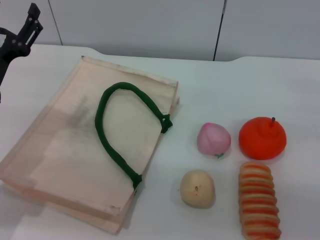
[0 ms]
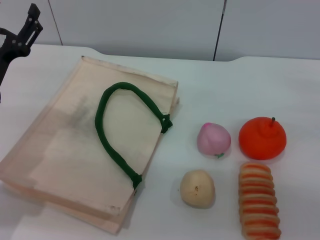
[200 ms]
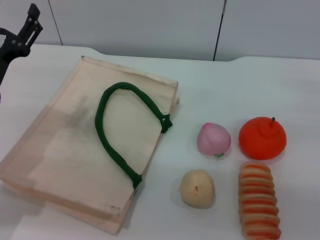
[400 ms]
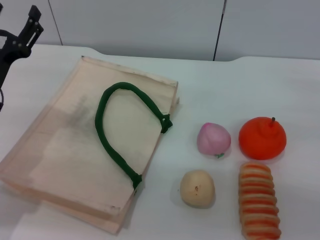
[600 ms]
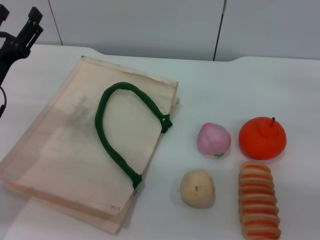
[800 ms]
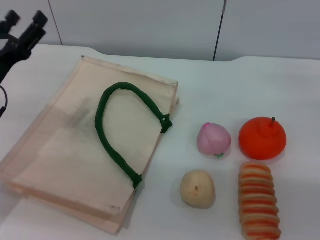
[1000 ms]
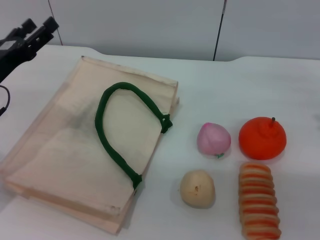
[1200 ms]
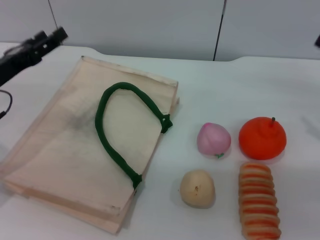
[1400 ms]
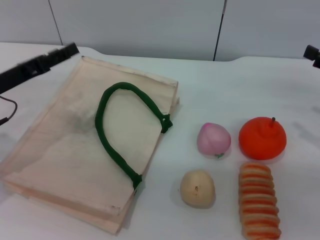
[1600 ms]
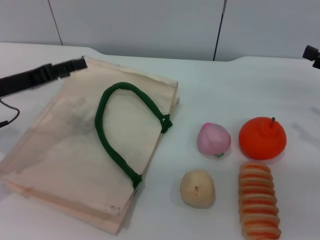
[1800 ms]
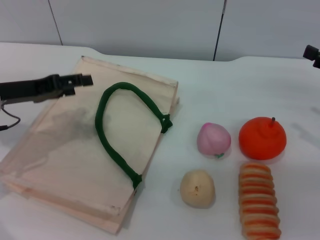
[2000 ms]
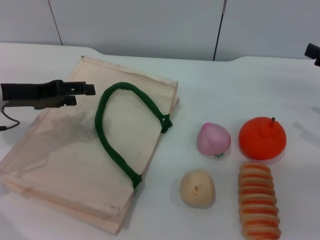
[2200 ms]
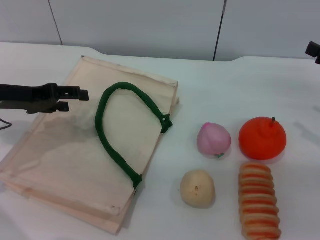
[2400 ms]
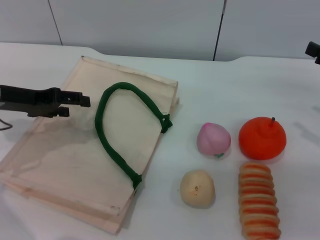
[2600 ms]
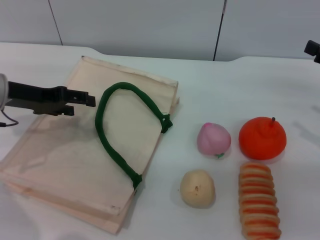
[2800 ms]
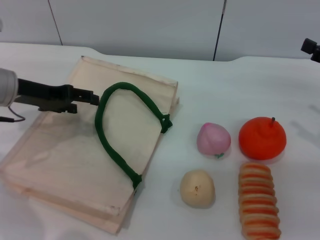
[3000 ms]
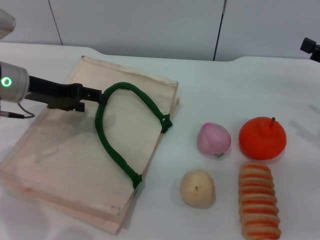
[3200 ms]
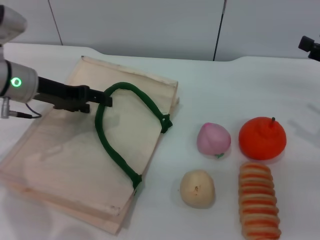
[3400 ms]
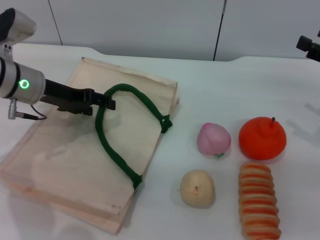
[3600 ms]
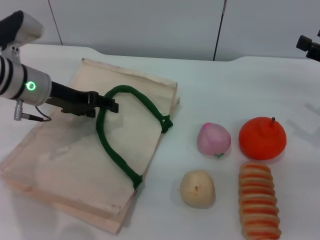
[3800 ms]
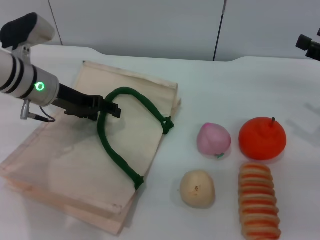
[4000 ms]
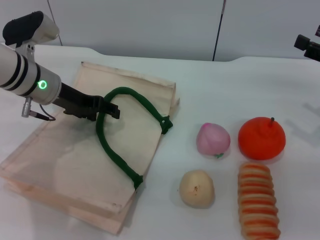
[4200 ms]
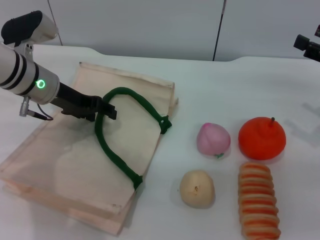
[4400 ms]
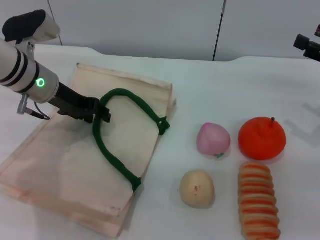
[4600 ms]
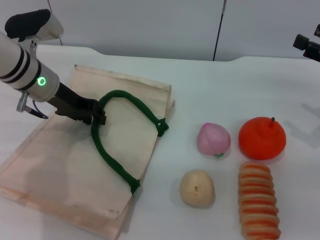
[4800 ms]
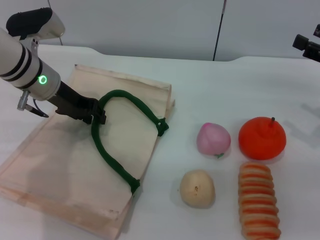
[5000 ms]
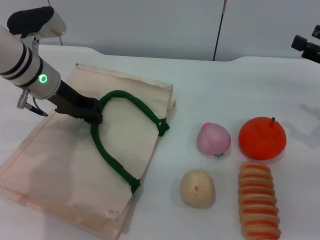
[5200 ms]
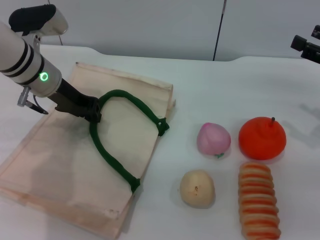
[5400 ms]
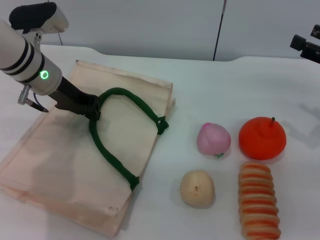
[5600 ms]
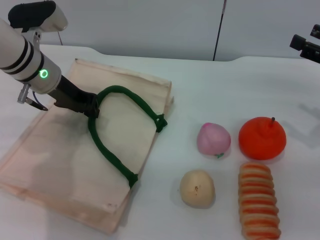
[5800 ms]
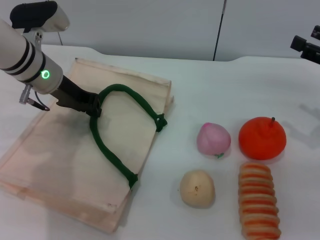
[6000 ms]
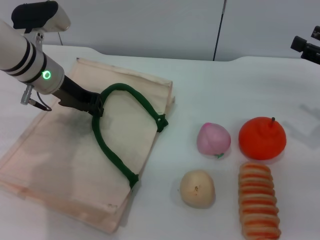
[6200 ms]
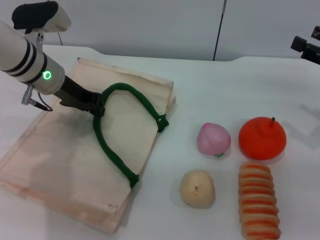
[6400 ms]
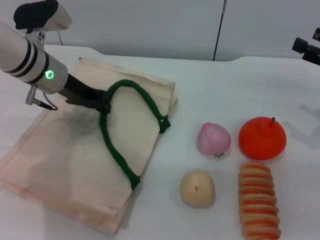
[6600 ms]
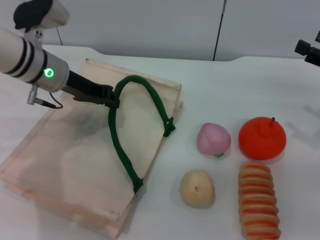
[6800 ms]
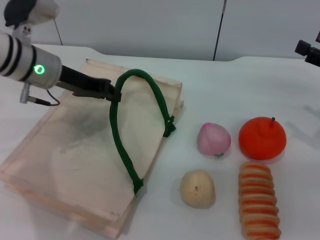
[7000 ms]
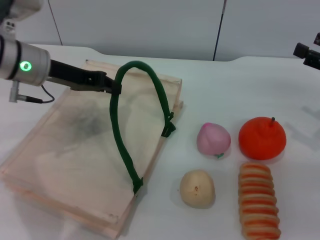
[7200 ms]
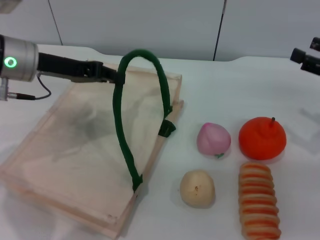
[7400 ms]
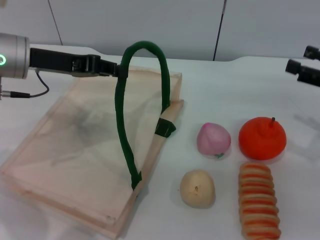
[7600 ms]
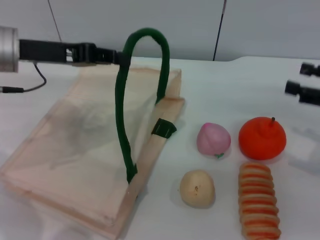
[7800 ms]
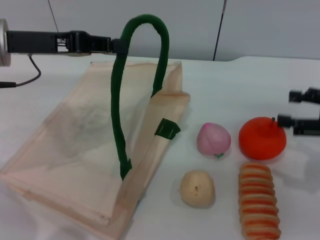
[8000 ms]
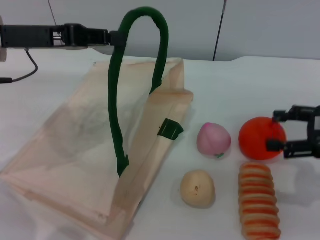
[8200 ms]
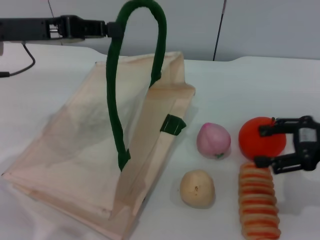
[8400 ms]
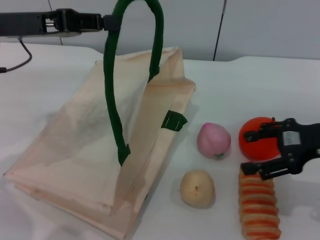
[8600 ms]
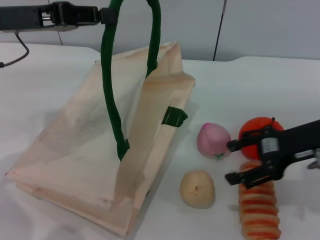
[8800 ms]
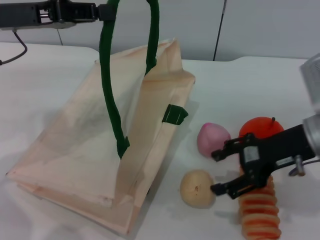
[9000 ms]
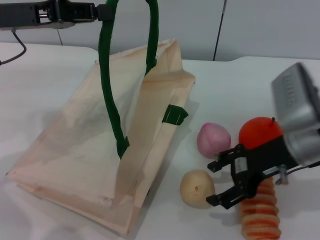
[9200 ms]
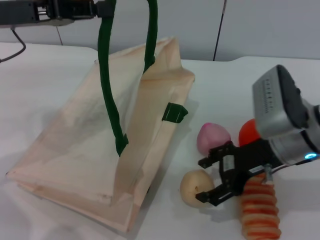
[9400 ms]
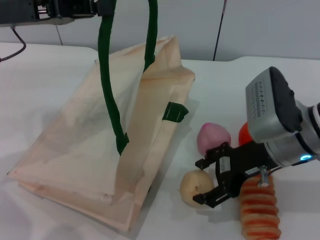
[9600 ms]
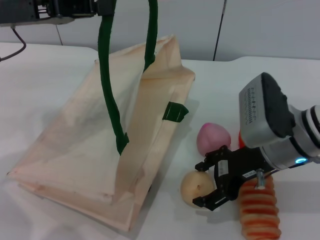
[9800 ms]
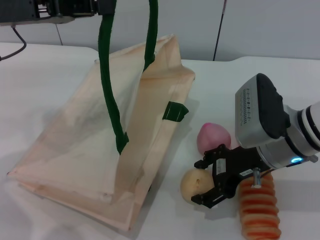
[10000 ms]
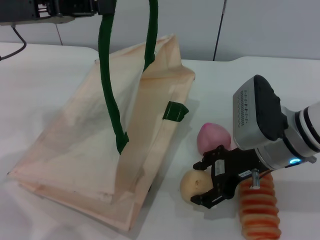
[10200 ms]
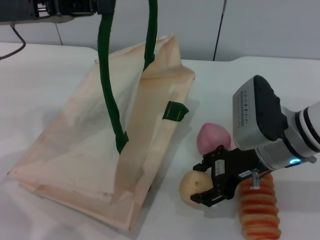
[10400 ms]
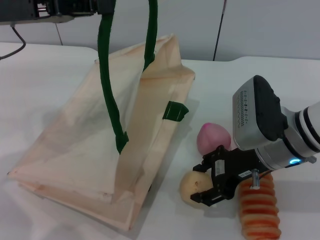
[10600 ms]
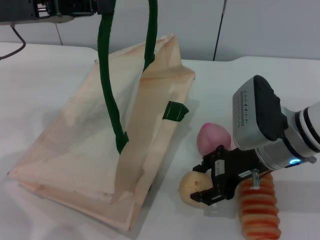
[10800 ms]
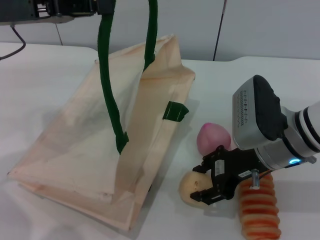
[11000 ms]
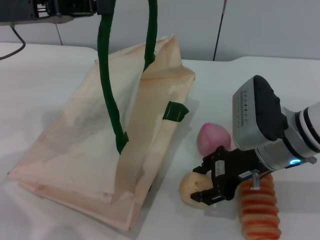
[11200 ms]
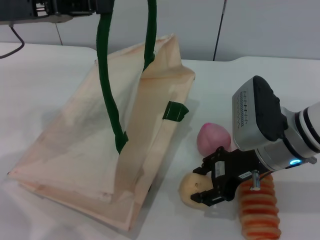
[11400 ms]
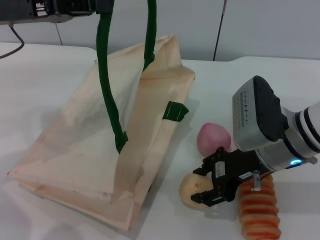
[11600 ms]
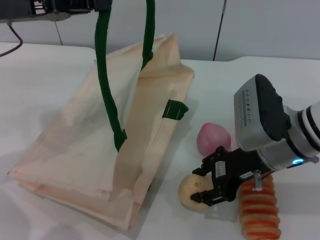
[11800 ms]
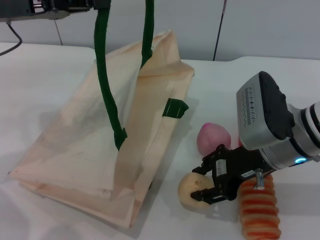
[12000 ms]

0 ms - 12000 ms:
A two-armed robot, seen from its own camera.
Task of the whole recording: pick up the egg yolk pastry from the table and place it in the white handbag.
Step, 0 ms - 7600 ms: Lift the woven bag with the left gripper to open it.
1600 ms - 3000 ms: The left gripper moves some 5 cm.
3000 ms - 4400 ms: The left gripper goes roughly 5 cm to the right.
4400 ms - 6000 ms: The left gripper closes its fingers.
6000 ms - 7600 ms: The left gripper shifts about 5 cm backward.
7600 ms - 9000 ms: The right gripper shifts roughly 10 cm to the left. Meanwhile the left gripper shifts by approximately 5 cm.
9000 ms - 10400 ms: The right gripper goes approximately 5 cm to the left.
10400 ms - 12000 ms: The right gripper closes its fingers.

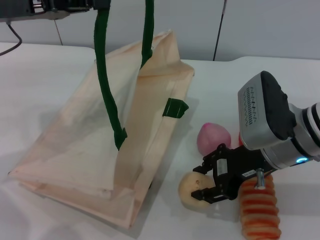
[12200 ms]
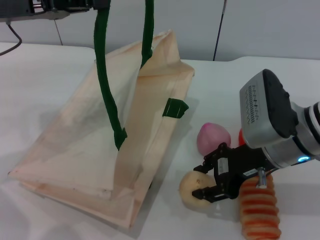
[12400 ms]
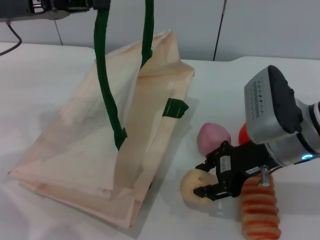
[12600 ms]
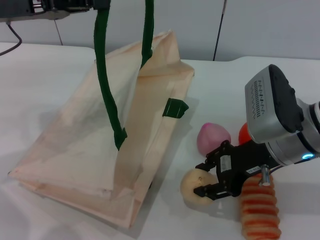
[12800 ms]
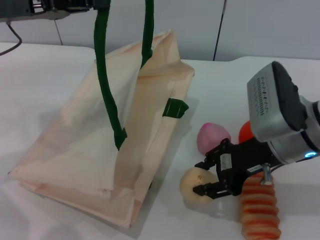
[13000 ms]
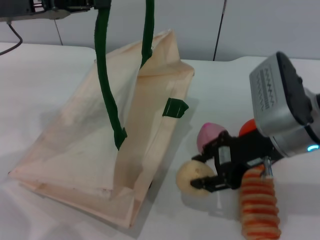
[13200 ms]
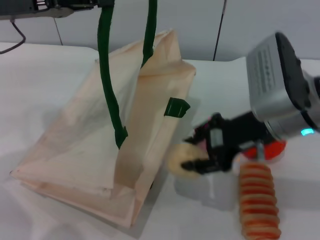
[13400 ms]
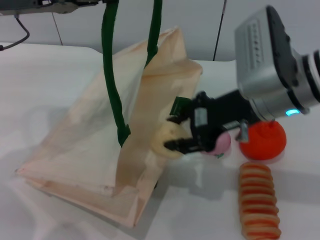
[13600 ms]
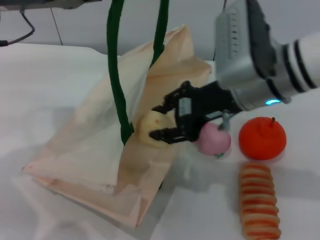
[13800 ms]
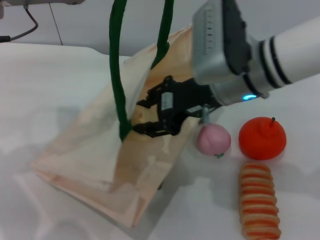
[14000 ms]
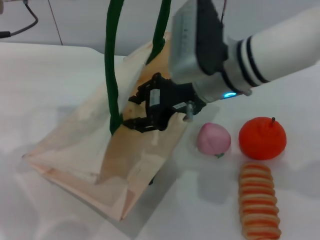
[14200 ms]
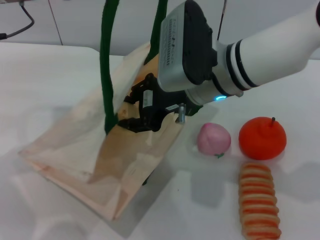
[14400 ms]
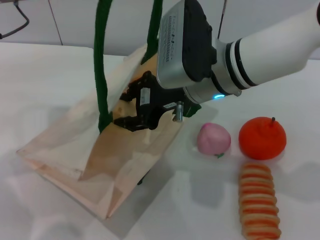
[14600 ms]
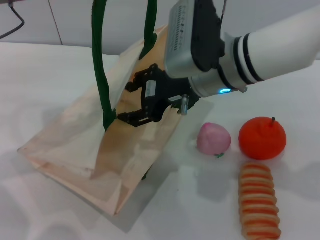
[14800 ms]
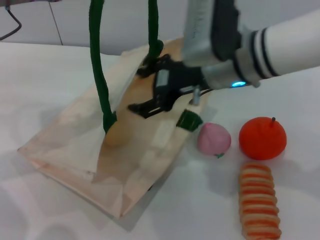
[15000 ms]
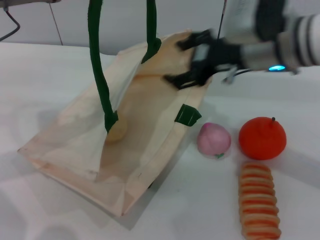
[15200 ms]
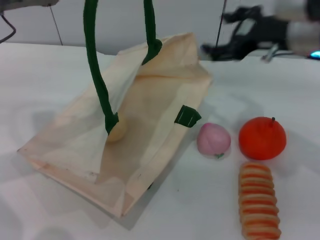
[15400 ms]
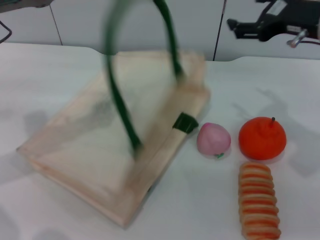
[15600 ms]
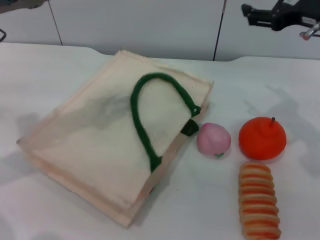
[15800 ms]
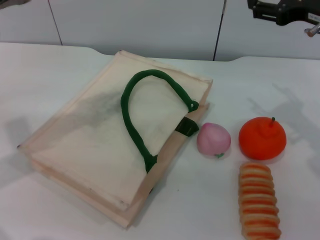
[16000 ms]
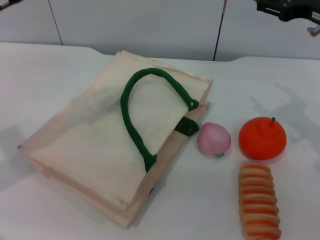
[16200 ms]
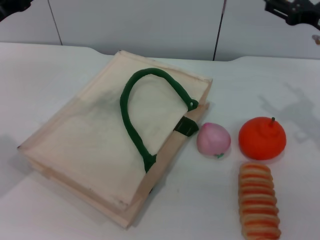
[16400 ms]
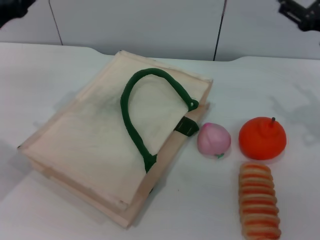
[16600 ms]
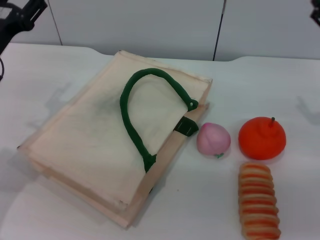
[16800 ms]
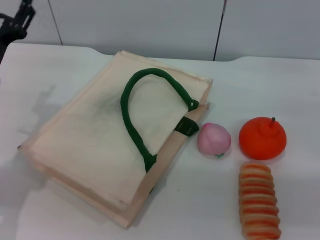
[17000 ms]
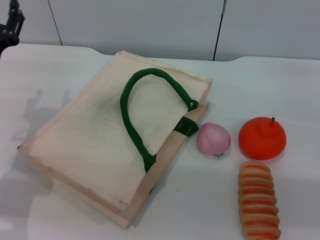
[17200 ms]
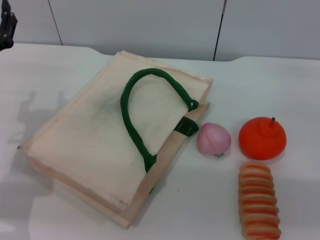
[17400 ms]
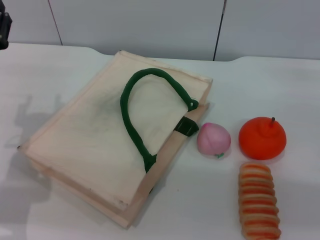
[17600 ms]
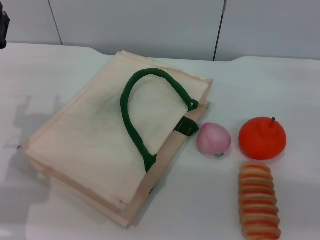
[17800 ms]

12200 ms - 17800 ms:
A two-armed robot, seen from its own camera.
Task of the whole recording: pick up the egg yolk pastry from the table and place it in the white handbag.
Step, 13200 ms - 15200 ms: Place the egg yolk pastry into the woven bag with the right gripper.
Step, 15400 ms - 16400 ms: Lower the woven bag with the left gripper to close it.
12200 ms - 13600 ms: The right gripper goes some 5 cm upward.
13600 ms - 15000 ms: The right gripper moves to the left, roughly 5 cm, and opens up.
15000 ms - 16400 ms: The left gripper heads downward, covering roughly 5 cm, and opens up; the right gripper is displaced to the right by some 20 cm, and opens.
16400 ms - 17800 ms: The left gripper is displaced downward by about 10 cm, while the right gripper shifts some 10 cm downward and to the right.
